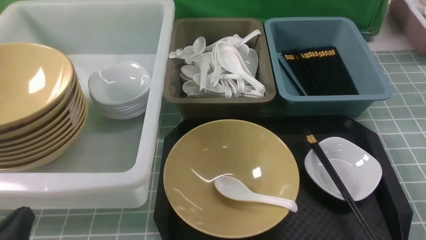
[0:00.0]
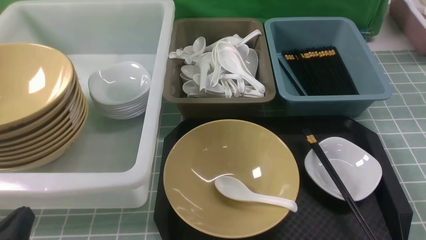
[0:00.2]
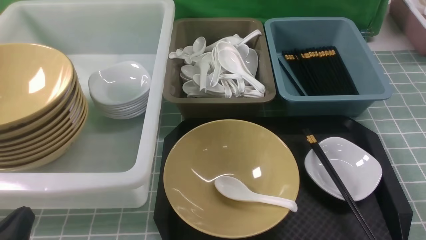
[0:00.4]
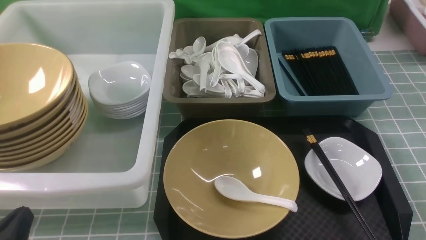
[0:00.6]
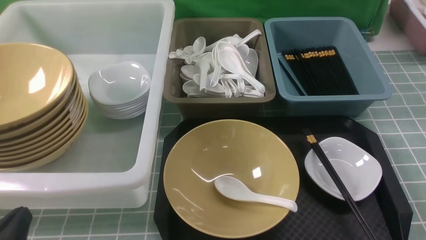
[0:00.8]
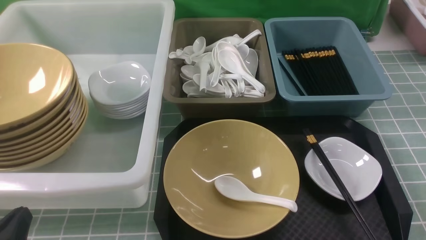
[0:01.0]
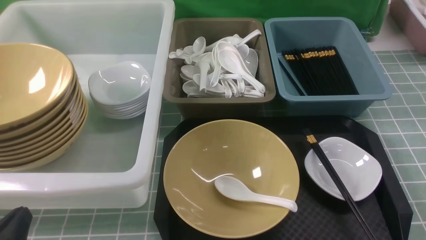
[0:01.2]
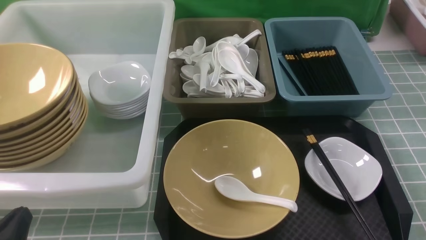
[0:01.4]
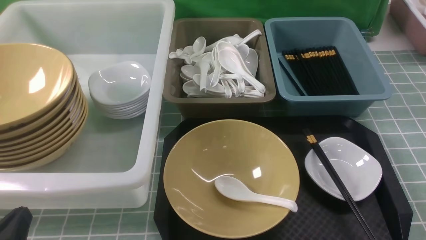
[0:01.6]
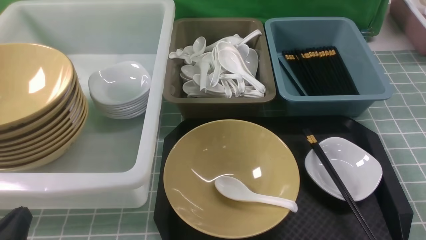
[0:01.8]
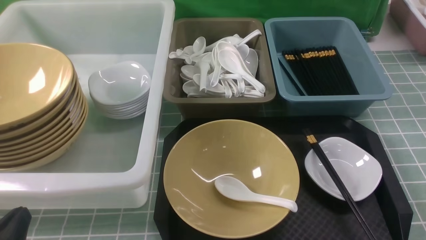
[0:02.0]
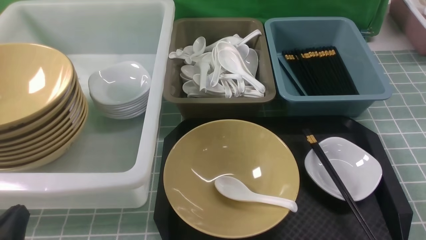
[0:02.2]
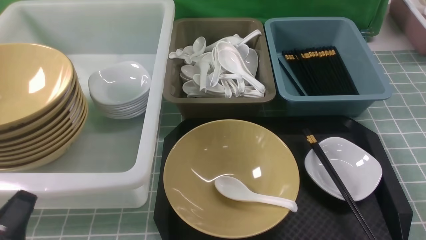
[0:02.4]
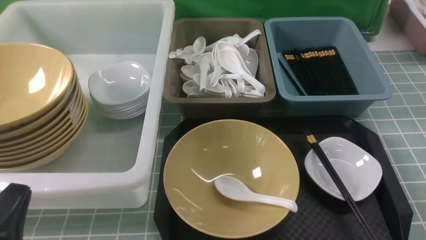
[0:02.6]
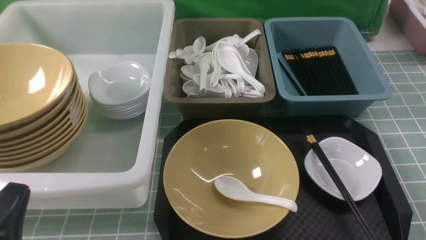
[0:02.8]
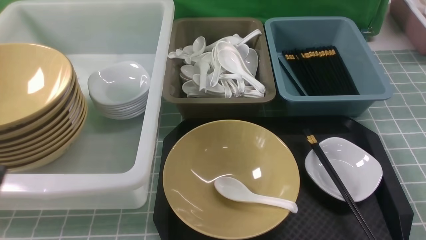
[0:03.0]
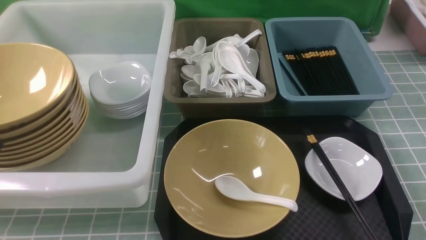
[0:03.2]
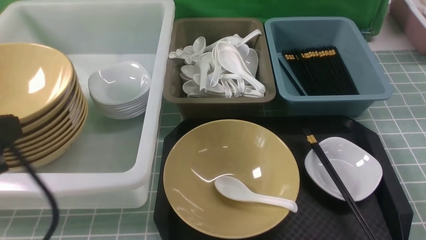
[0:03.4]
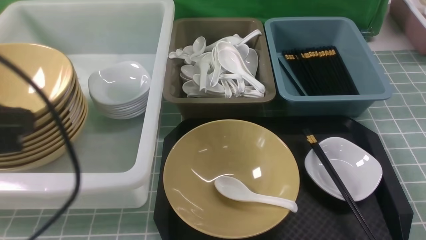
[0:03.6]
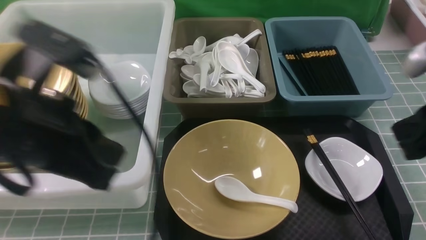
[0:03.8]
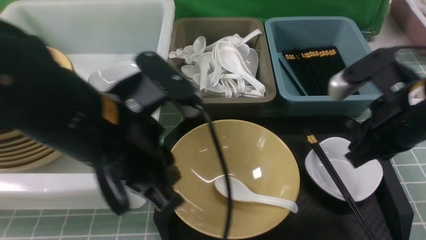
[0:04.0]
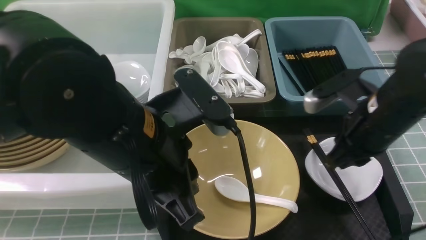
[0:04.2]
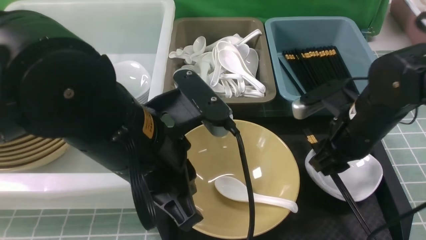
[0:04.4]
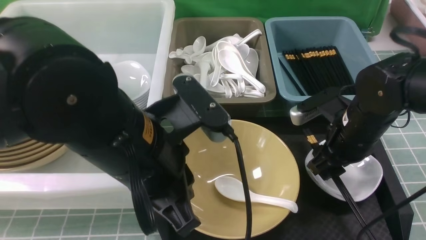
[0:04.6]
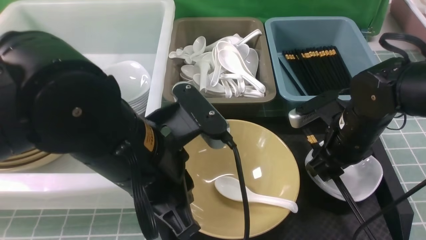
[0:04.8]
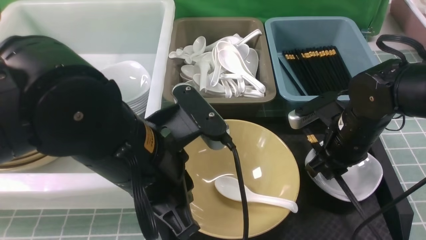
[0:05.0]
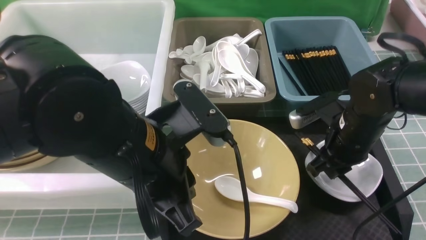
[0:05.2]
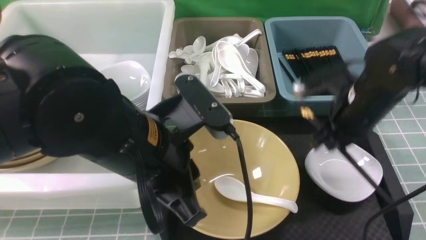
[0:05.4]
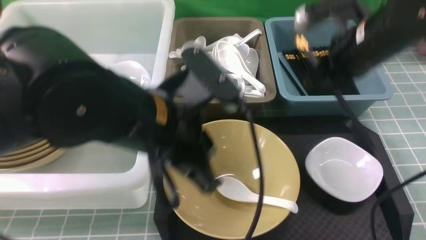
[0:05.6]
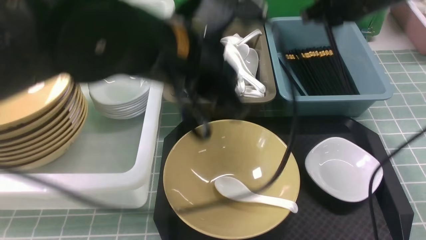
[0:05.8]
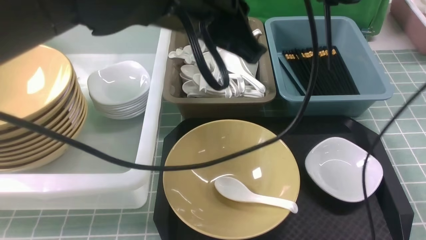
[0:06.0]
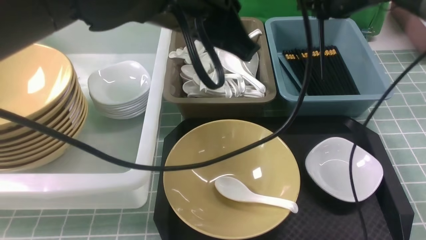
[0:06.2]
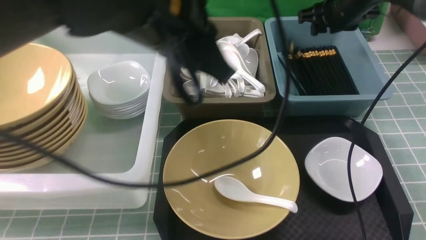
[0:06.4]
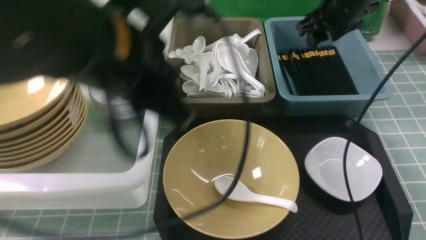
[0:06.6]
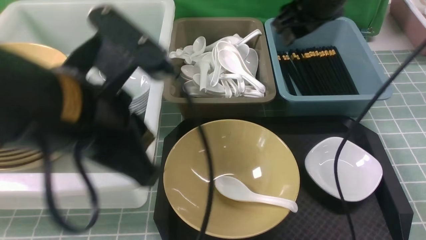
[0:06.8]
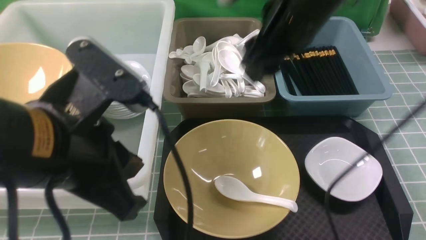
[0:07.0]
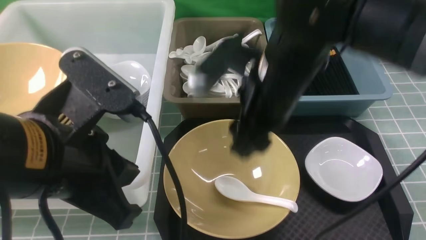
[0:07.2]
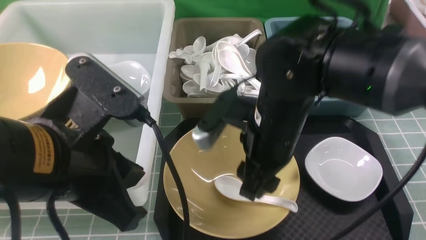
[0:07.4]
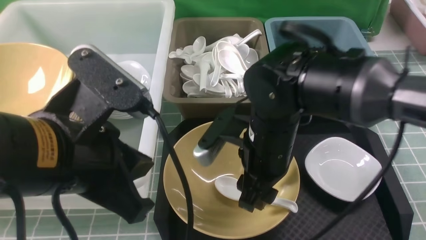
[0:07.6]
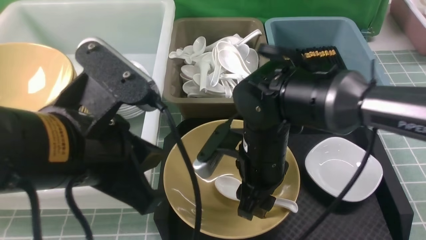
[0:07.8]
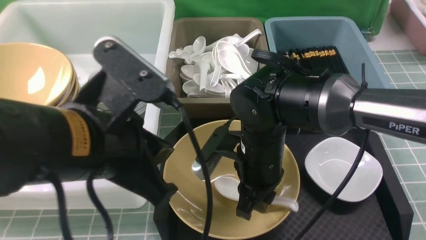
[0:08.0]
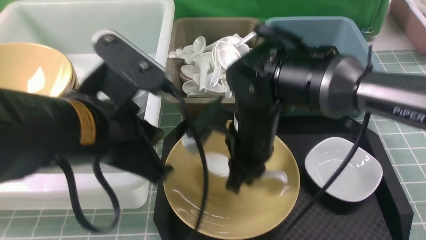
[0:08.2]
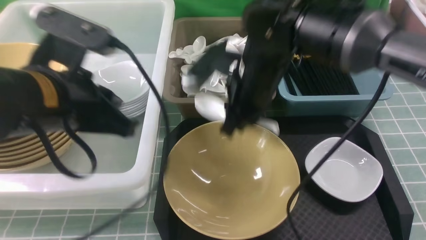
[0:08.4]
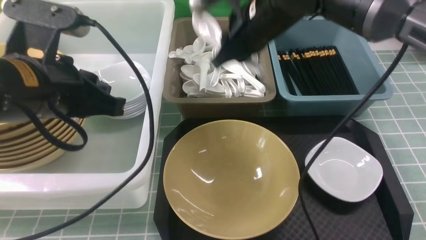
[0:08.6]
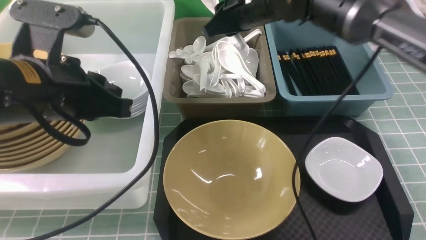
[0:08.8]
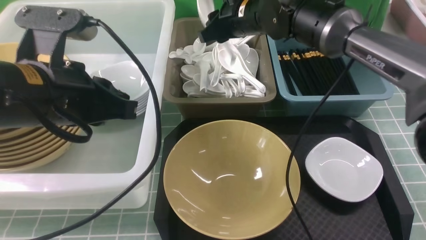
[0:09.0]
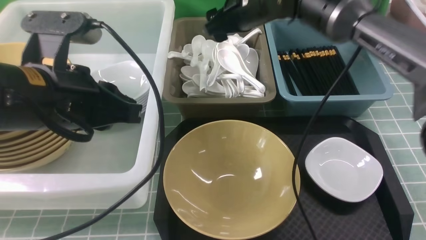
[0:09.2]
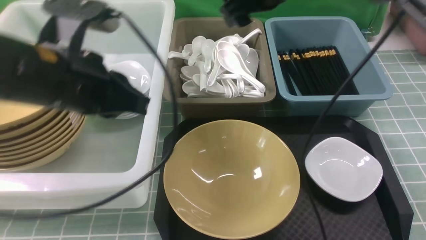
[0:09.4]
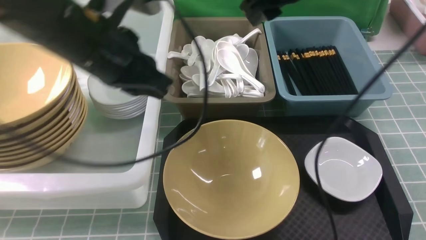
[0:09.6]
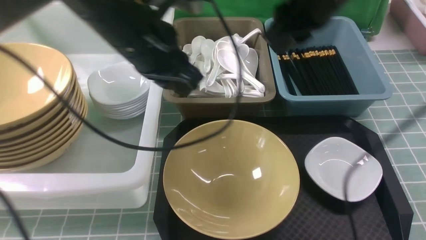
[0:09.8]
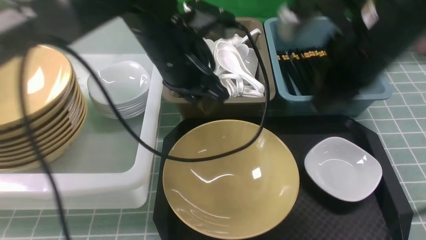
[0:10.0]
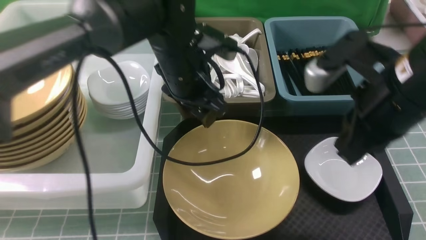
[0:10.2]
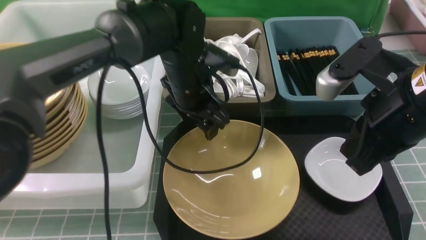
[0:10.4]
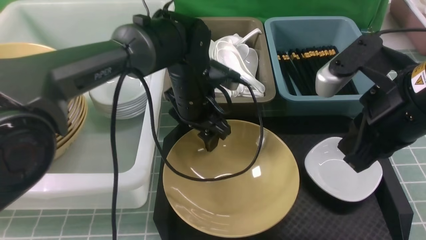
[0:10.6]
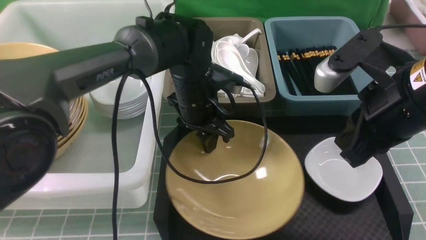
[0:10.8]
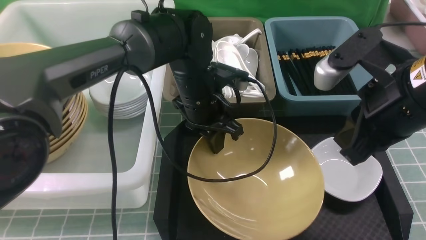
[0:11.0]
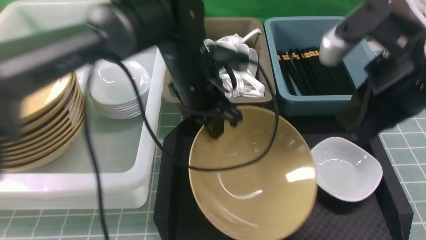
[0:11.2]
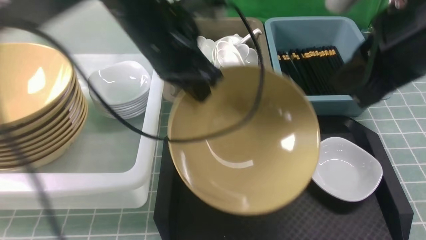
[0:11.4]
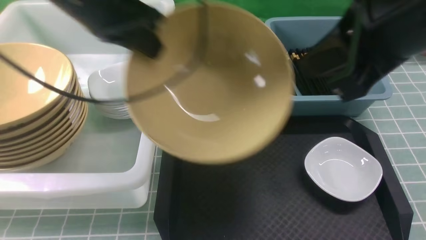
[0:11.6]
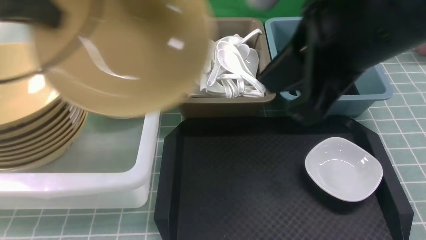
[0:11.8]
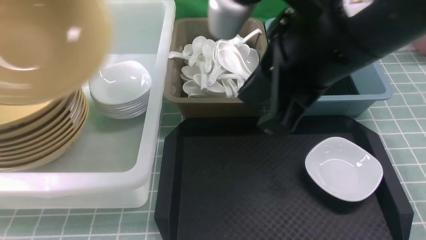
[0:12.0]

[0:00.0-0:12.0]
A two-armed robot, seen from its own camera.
Task of the whole recording: on blue table put chopsticks spoon bowls plates into blue grey white boxes.
Step, 0:00.0 to 0:05.2: use the right arm to grab the chopsticks.
Step, 0:05.4 to 0:06.6: use the right arm to put the chopsticks into the small storage box on the right.
Step, 0:06.8 to 0:08.0: use the right arm to grab the soup spoon in the middle.
Step, 0:08.2 to 0:09.0: use the right arm to put the soup spoon into the small storage box in the middle.
Step, 0:09.2 to 0:11.0: use the left arm to grab the yellow noodle bowl on the left.
0:01.6 to 0:03.0: The left gripper travels upward by about 5 cm.
0:03.0 to 0:04.4: The left gripper moves to the right, forward and upward, roughly 25 cm. Meanwhile the right gripper is displaced forward and to the left by about 25 cm, and closes and opens again.
0:04.4 to 0:06.0: The right gripper goes about 20 cm forward and upward. The left gripper moves upward and forward, some 10 cm.
0:06.0 to 0:07.6: The right gripper moves backward, to the left and downward, some 25 cm, and opens its fingers, while the left gripper moves backward, to the left and downward, roughly 15 cm.
0:07.6 to 0:09.0: The right gripper moves forward, some 20 cm; the left gripper is displaced forward by about 5 cm.
0:09.0 to 0:10.4: The right gripper is displaced backward and to the right by about 25 cm, and closes up. Meanwhile the left gripper heads forward, to the right and downward, covering some 20 cm, and opens.
0:10.4 to 0:12.0: The right gripper goes some 15 cm upward and to the left. The left gripper moves to the left and upward, about 35 cm, and closes.

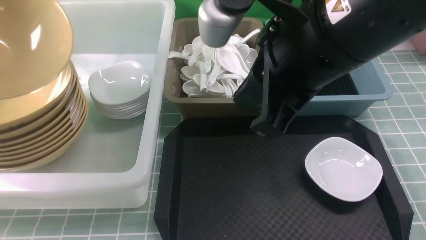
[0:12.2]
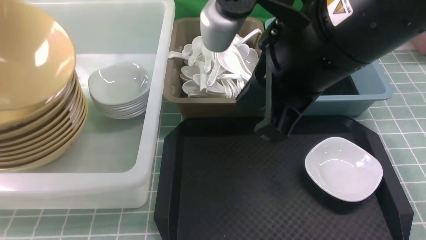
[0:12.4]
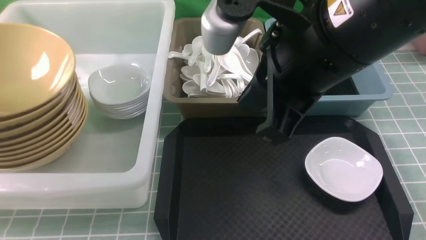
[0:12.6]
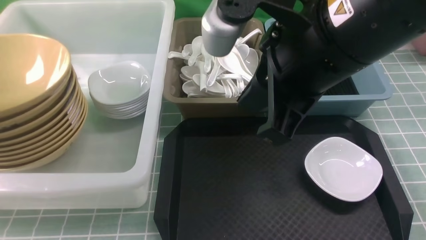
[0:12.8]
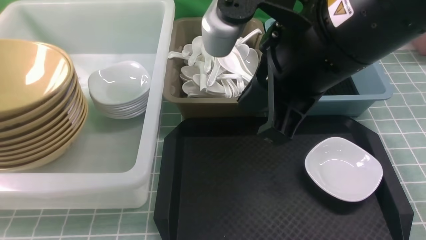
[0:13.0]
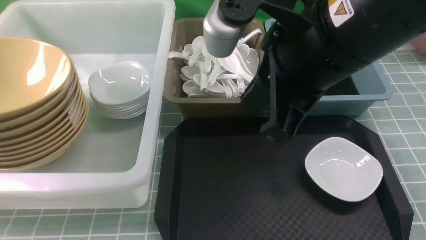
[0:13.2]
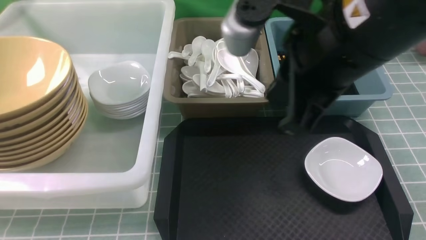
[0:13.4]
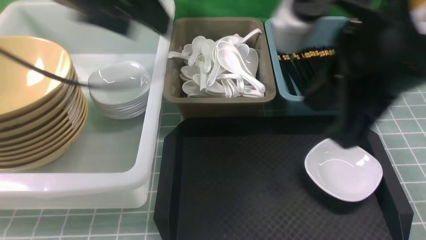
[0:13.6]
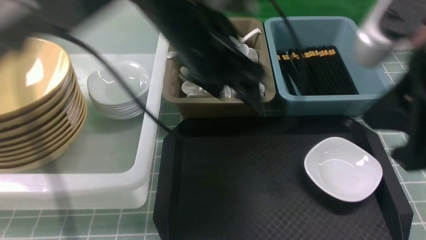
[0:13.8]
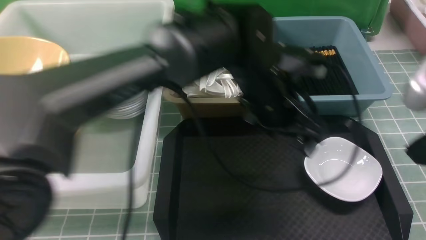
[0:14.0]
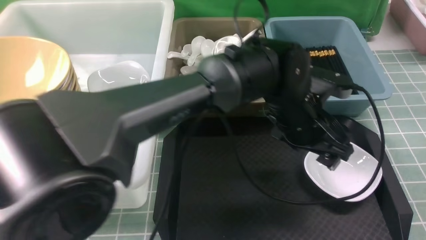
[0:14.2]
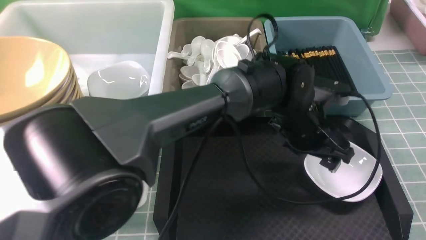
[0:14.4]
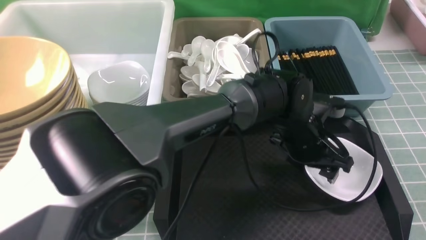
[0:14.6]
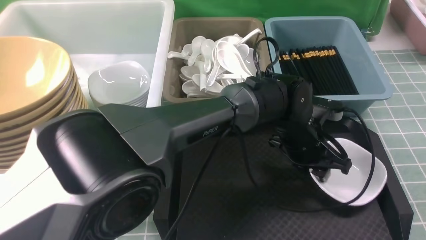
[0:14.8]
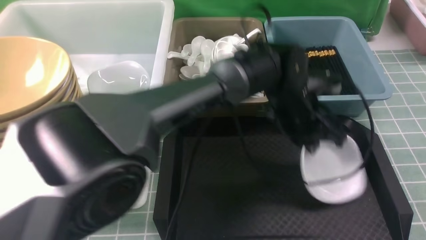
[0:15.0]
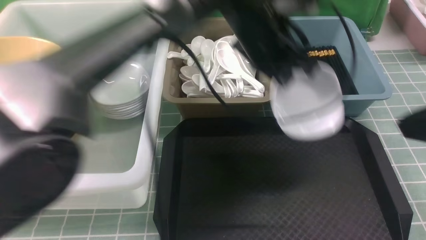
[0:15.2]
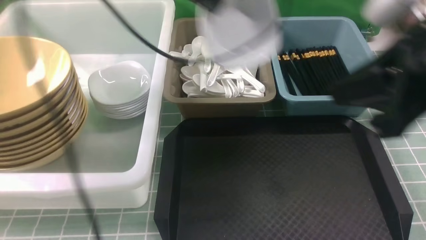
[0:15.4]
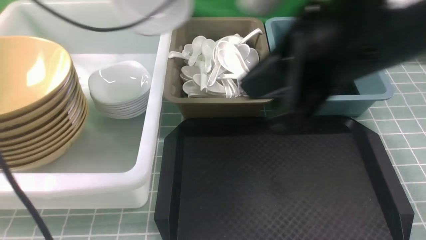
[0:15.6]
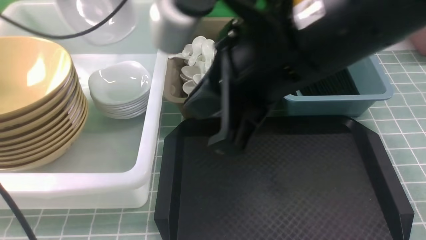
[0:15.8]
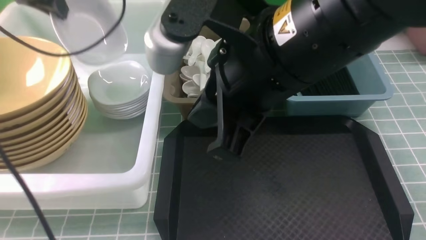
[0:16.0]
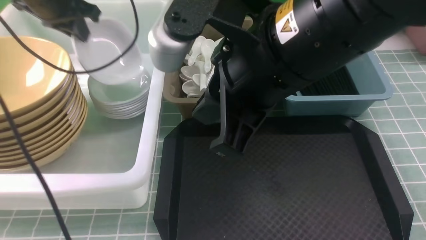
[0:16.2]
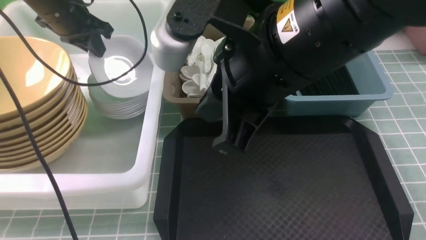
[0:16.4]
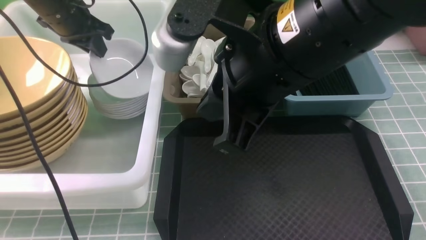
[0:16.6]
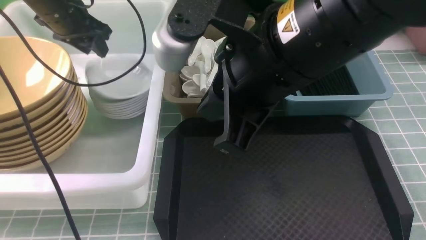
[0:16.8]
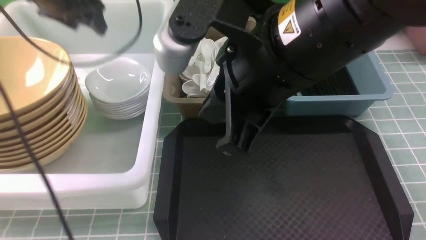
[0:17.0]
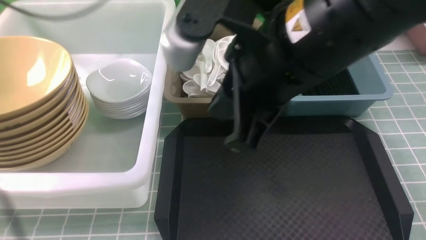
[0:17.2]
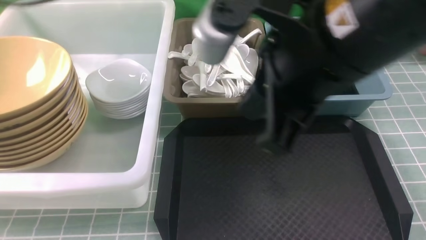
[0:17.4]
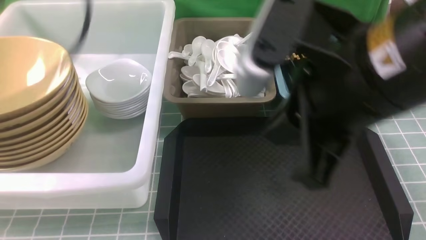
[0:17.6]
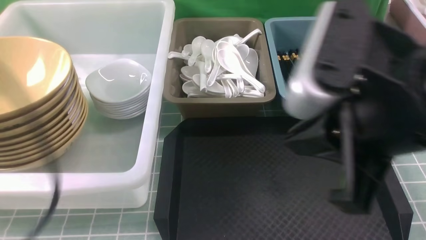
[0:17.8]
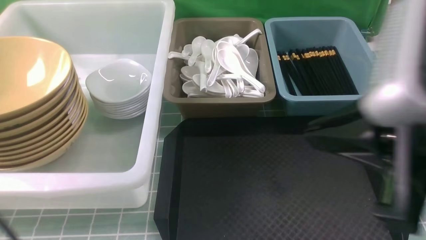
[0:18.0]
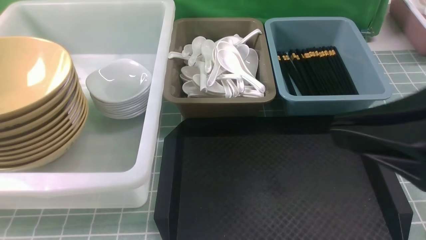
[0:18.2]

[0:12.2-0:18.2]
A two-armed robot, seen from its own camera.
Task of the whole recording: on blue table put chopsticks spoon bowls plates into blue grey white boxes.
Step, 0:13.0 to 0:15.0: use the left arm to grab the plate.
Step, 0:15.2 to 0:16.8: use the left arm to put the plate into the large storage box on the left.
0:12.2 to 0:13.8: The right gripper travels to the right by approximately 10 cm, while the left gripper is displaced to the right by about 30 cm, and opens up.
0:13.8 to 0:15.2: The left gripper is displaced to the right by approximately 5 cm, and closes its fingers.
0:15.2 to 0:16.6: The left gripper moves to the left, some 25 cm. The right gripper is displaced to the left by about 15 cm.
0:16.6 to 0:18.2: The right gripper shifts roughly 15 cm to the right and backward, while the left gripper is displaced backward by roughly 40 cm, and opens and closes again.
